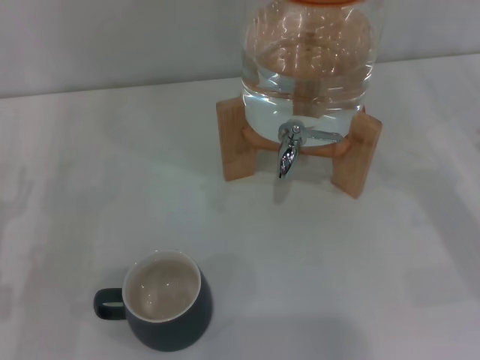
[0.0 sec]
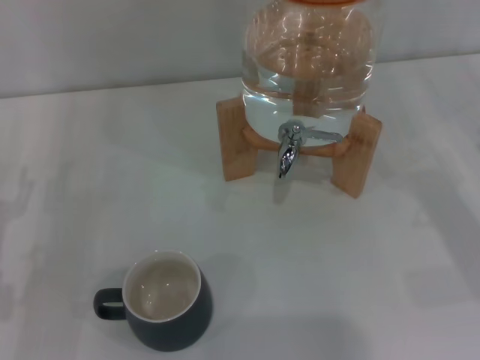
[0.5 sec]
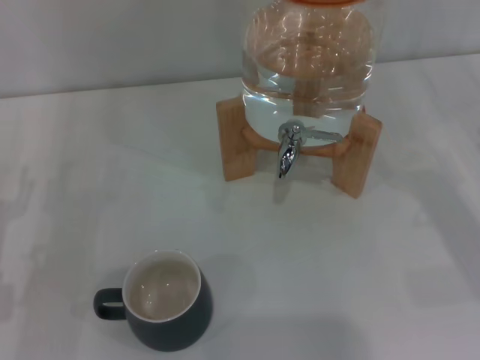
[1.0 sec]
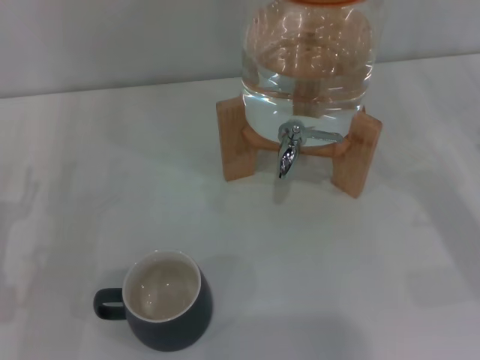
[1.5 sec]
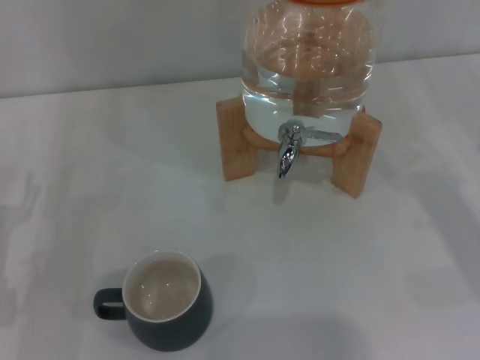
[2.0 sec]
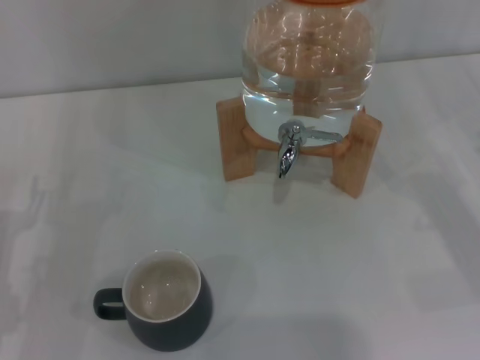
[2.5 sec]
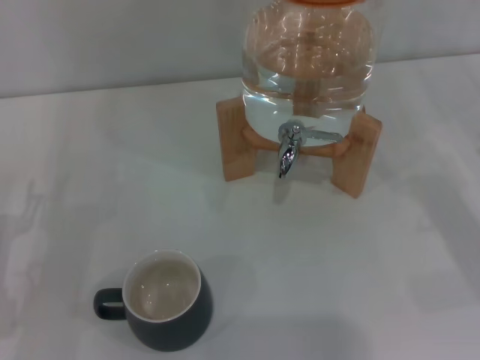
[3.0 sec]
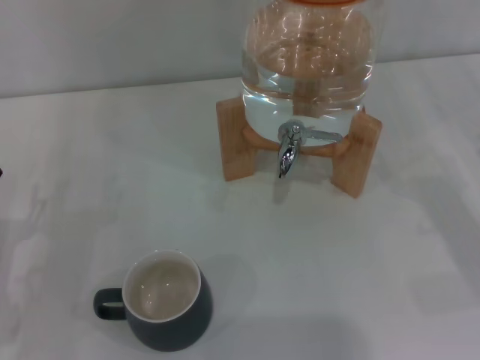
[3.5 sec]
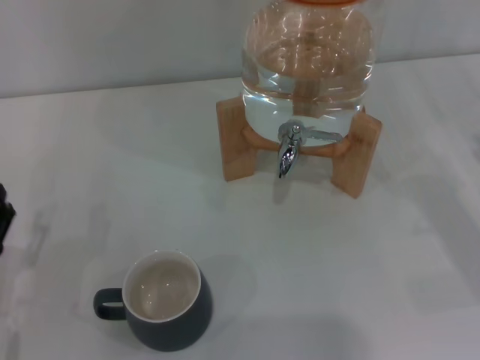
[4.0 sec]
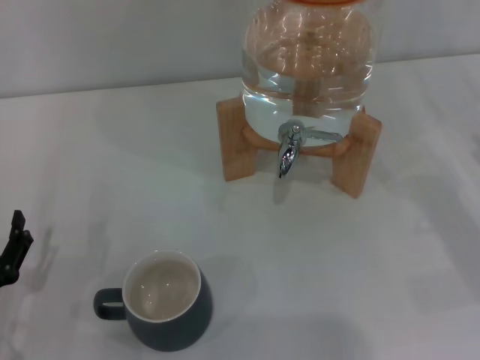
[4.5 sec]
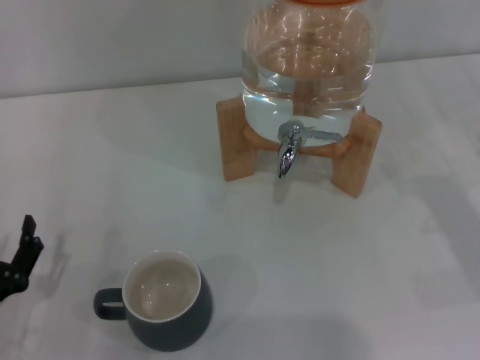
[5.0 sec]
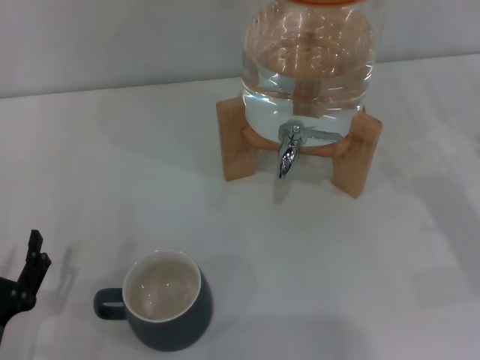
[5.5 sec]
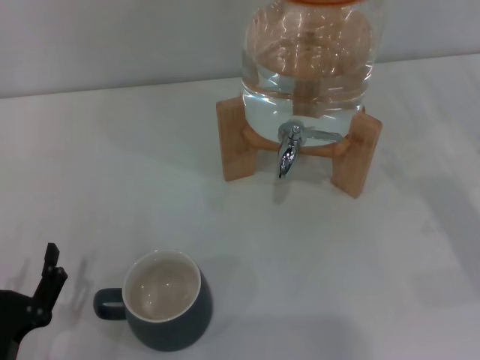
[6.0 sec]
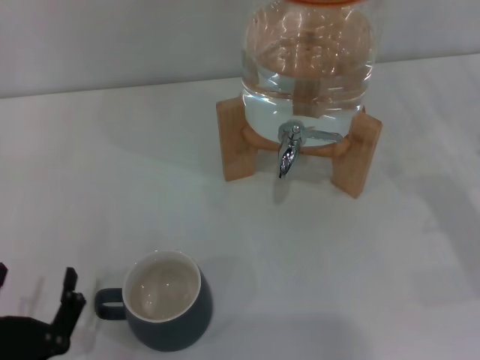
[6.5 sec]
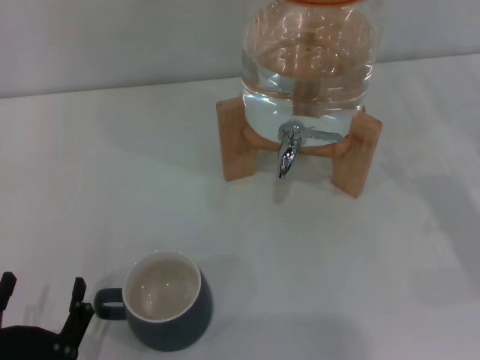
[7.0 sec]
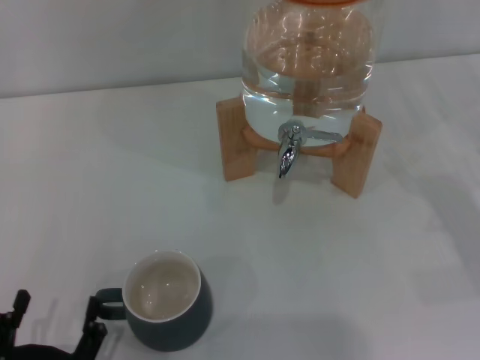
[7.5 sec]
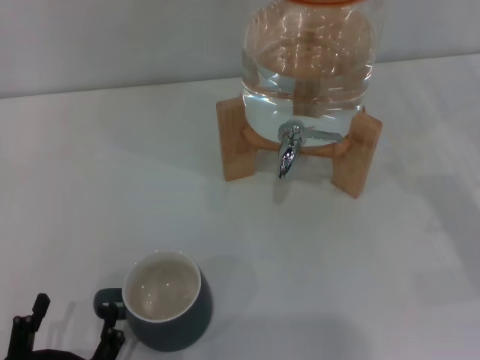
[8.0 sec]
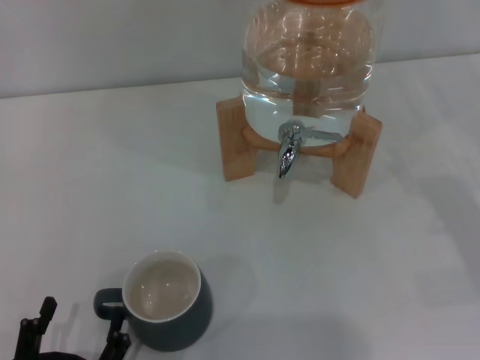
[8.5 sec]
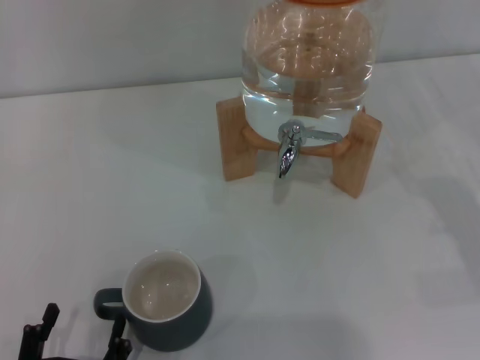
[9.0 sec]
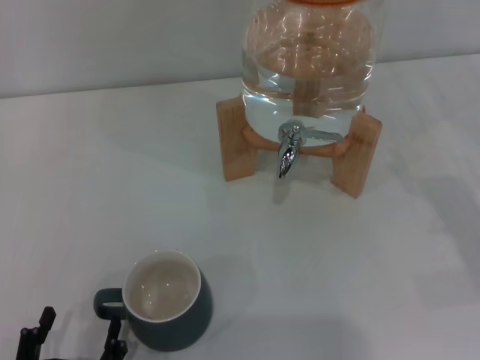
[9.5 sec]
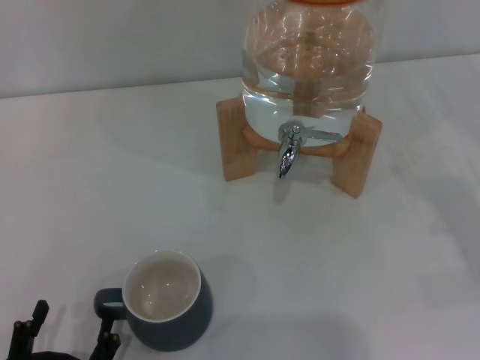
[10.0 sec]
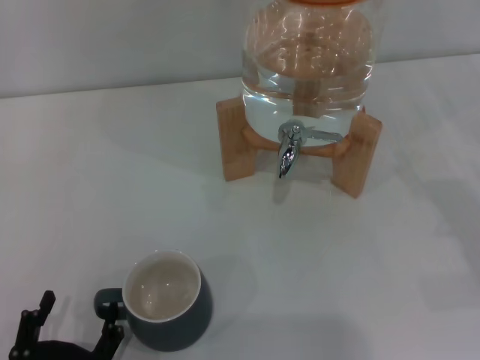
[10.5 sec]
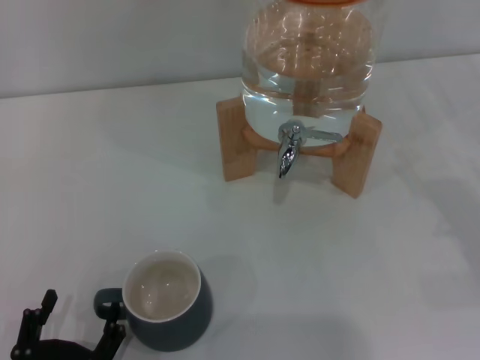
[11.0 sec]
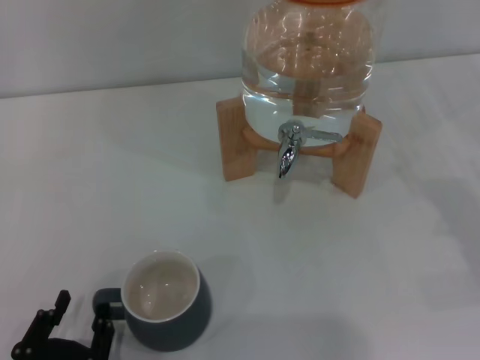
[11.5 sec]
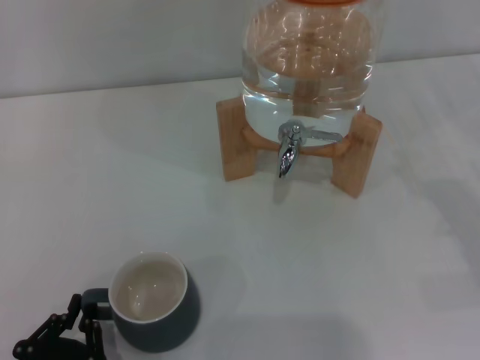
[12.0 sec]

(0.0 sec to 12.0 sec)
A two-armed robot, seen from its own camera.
Task of the whole recording: the left gripper pick up the black cup and place it horizontally under the faucet, the right gripper turn on the faucet to fill the cup, and then turn off the faucet.
0.0 sec - 2.0 sec: Neither gripper changes place.
2.0 sec - 4.0 sec: The left gripper ends up approximately 5 cm from where it was.
4.0 sec - 6.0 sec: The left gripper shifts approximately 10 cm backward.
6.0 sec - 8.0 sec: The left gripper is displaced backward by approximately 5 cm.
8.0 sec - 10.0 sec: Neither gripper changes place.
10.0 sec - 12.0 sec: The left gripper closes up.

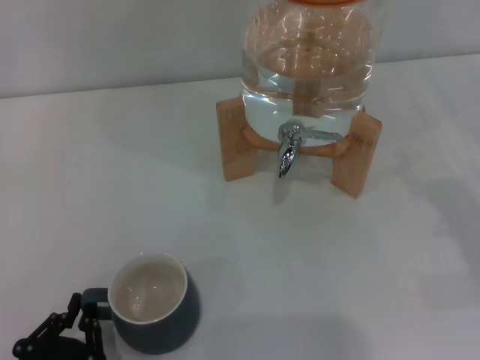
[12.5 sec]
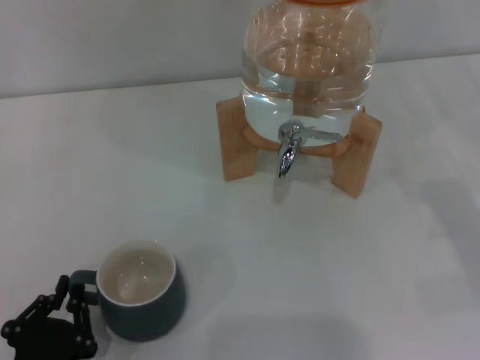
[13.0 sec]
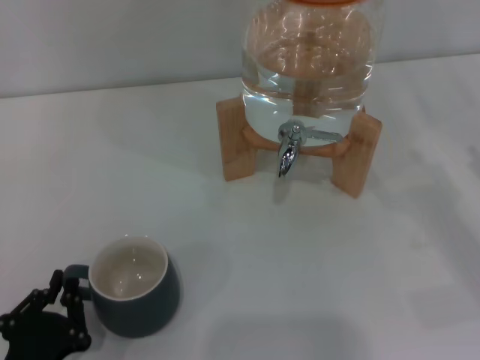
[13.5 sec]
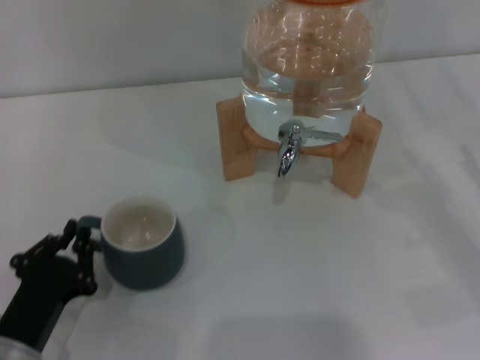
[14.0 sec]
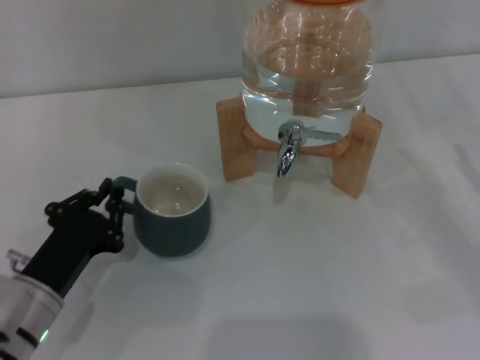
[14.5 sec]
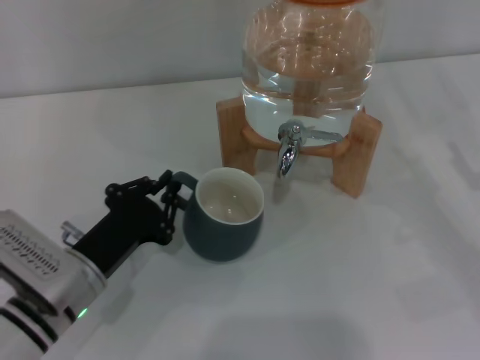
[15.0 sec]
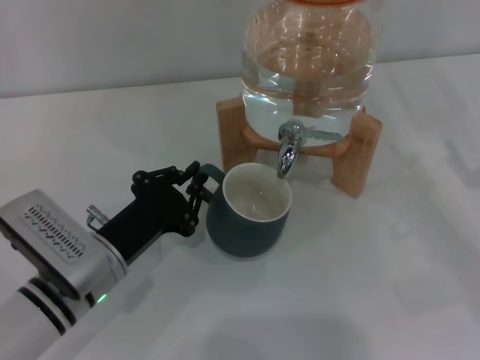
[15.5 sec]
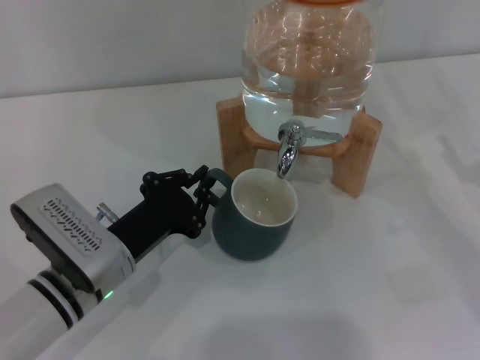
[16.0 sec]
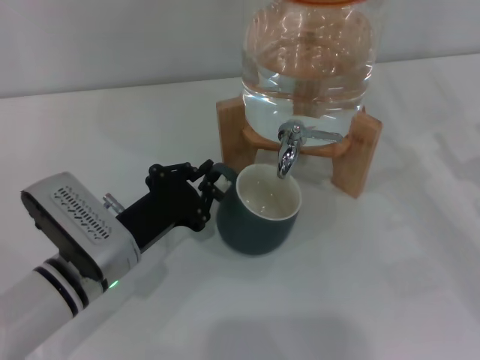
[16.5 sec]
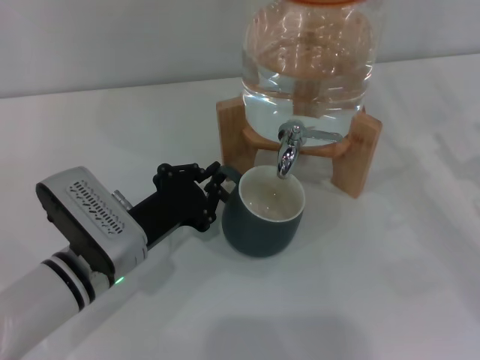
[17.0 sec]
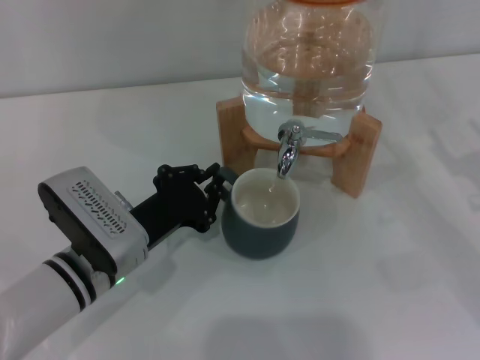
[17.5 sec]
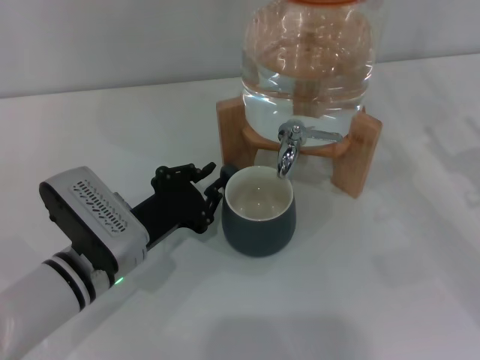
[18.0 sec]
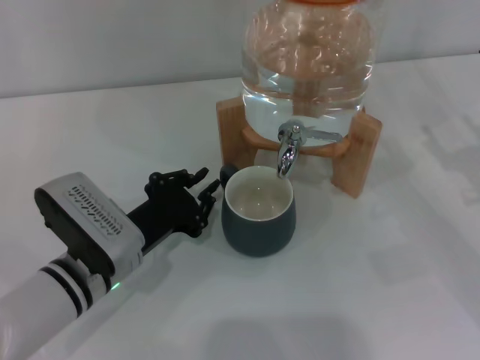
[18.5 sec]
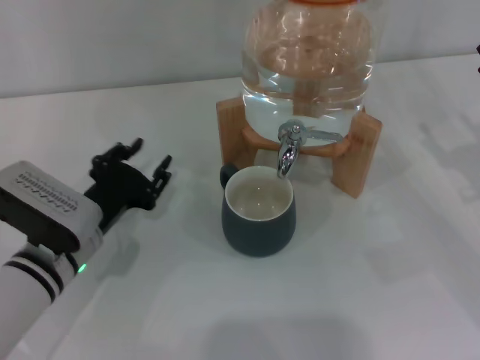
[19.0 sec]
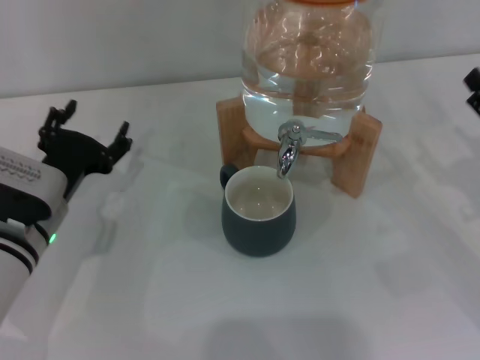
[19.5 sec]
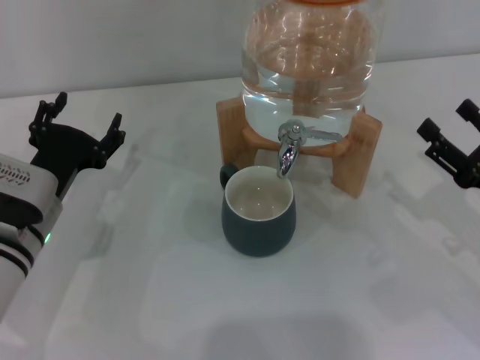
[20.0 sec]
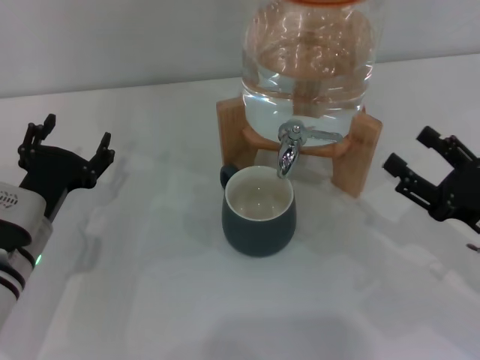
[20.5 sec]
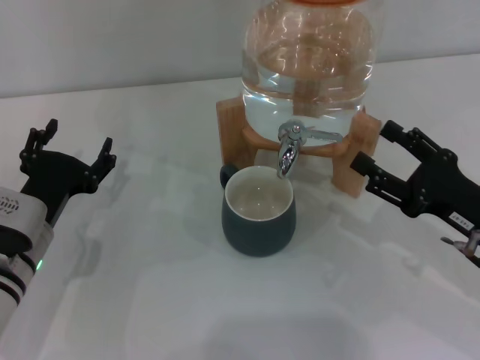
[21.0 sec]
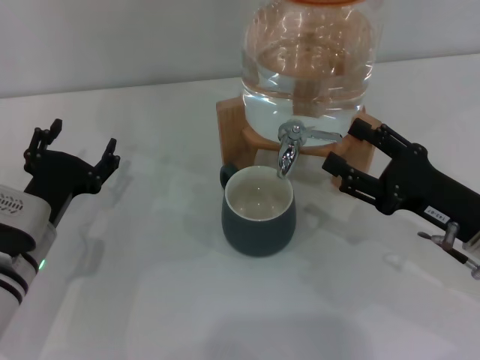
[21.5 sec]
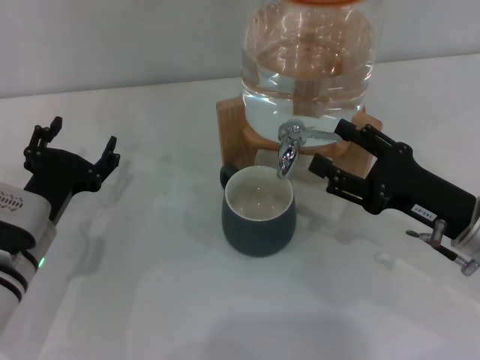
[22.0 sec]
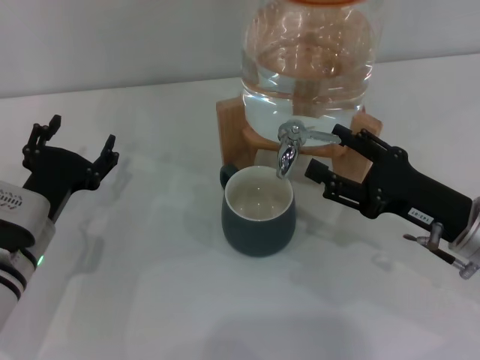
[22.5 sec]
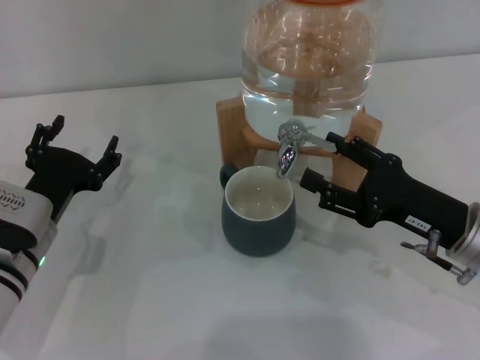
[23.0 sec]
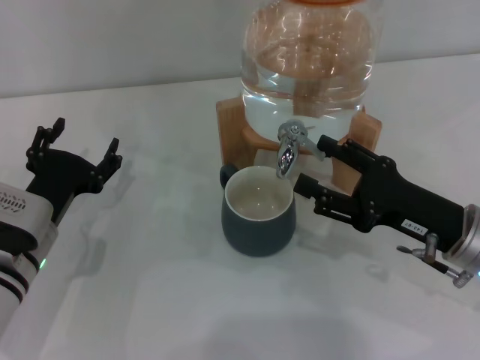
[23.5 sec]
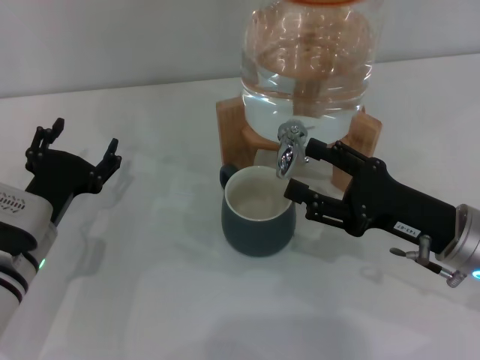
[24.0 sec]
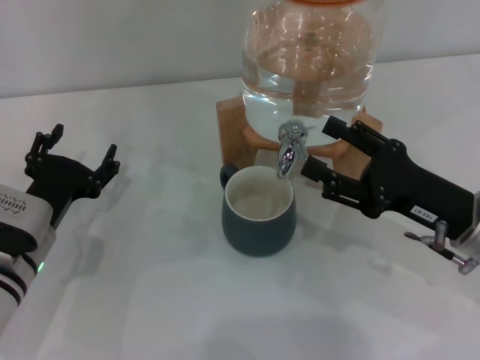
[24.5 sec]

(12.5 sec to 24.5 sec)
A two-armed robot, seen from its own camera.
Task of the whole recording: the left gripper pick up the black cup and place it horizontally under the faucet, the right gripper turn on the faucet to fill the cup, and then turn off the faucet.
Step, 12.5 sec - 18.5 sec: Move the cup beneath the water dispenser nozzle with the left gripper.
12.5 sec - 14.5 sec: The left gripper goes some 15 cm forward.
14.5 sec - 16.5 sec: The left gripper travels to the right by some 5 cm.
16.5 sec - 18.5 sec: There are only small adjustments of the grippers.
18.5 sec - 20.5 sec: The left gripper heads to the left, covering some 5 cm, and opens its fingers; the right gripper ends up roughly 5 cm from where it was.
20.5 sec - 22.5 sec: The right gripper ends up roughly 5 cm from where it was.
22.5 sec - 24.5 sec: The grippers stay close to where they were, moving slightly.

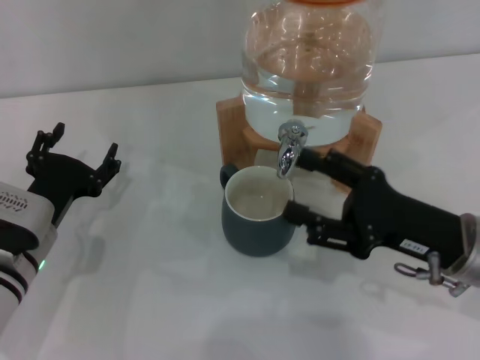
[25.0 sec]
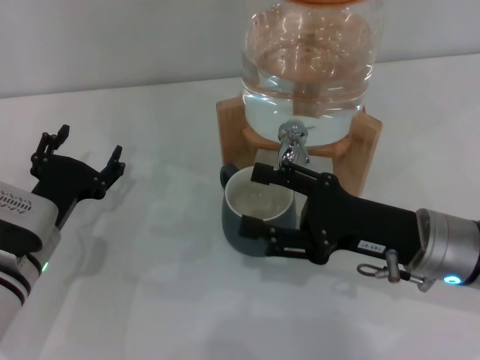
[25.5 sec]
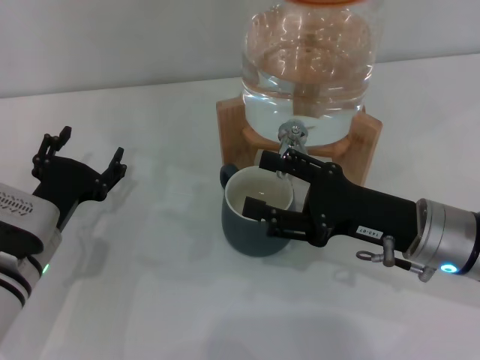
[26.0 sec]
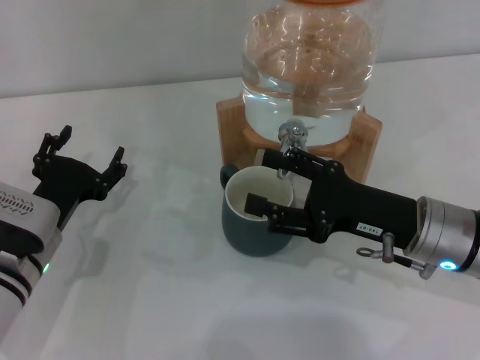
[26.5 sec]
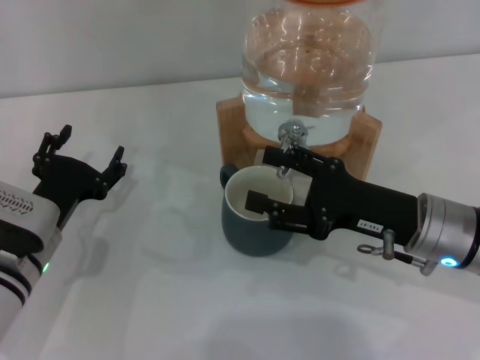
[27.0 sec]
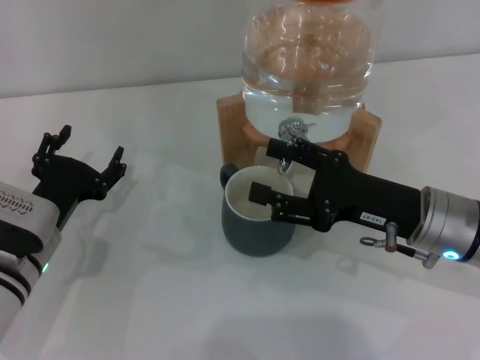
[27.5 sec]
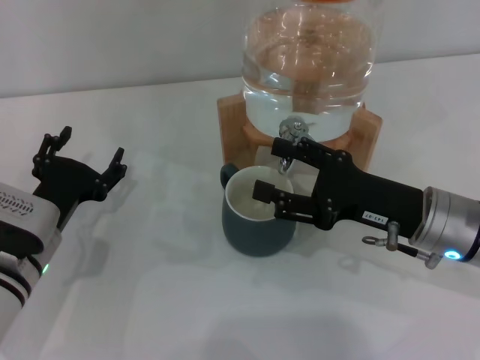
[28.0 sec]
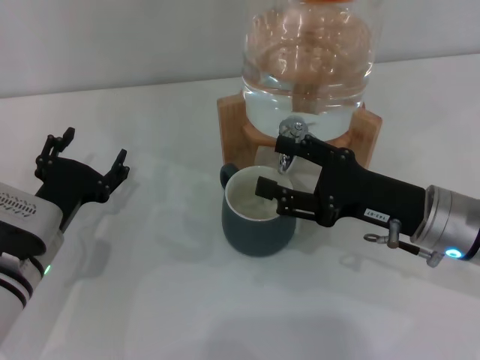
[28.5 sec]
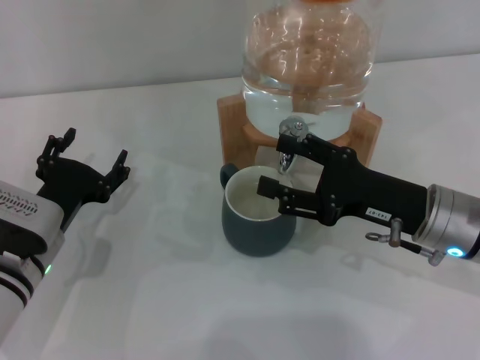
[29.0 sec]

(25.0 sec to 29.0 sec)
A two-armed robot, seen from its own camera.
Task of the whole recording: the left gripper pick up the black cup and place it horizontally under the faucet, the right gripper turn on the faucet to fill the cup, and then turn off the faucet.
25.0 sec - 27.0 sec: The grippers stay close to where they were, moving slightly.
27.0 sec - 29.0 sec: Both grippers stay put.
